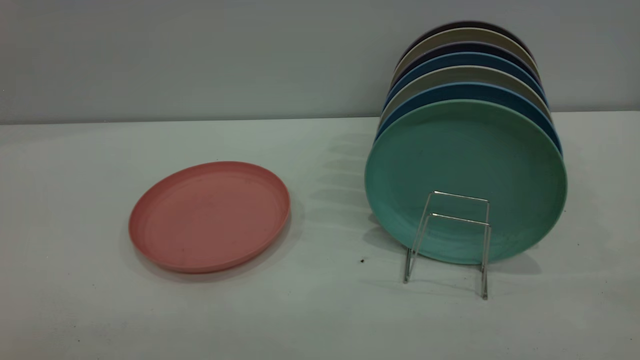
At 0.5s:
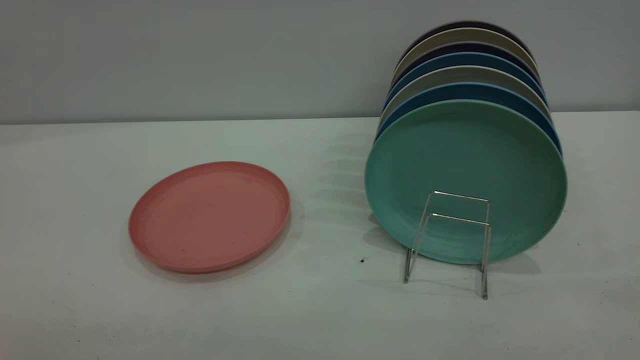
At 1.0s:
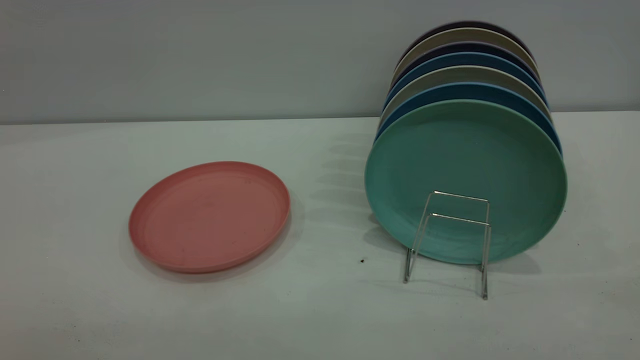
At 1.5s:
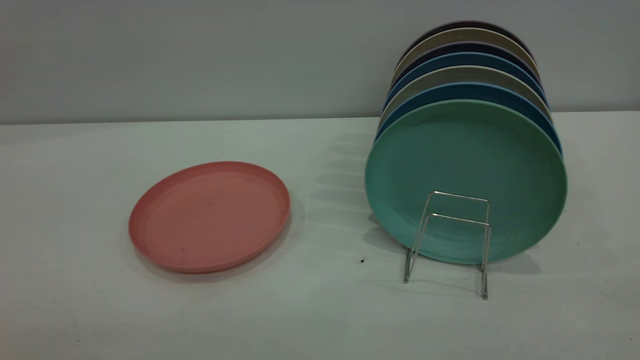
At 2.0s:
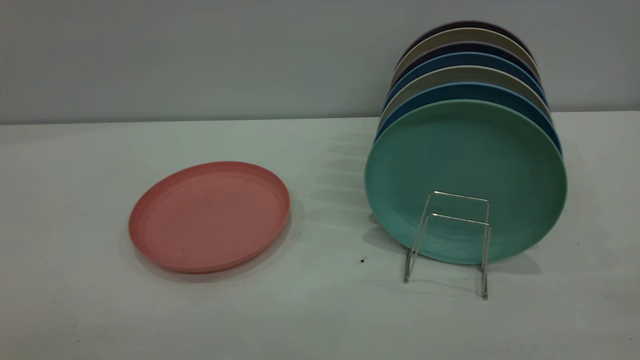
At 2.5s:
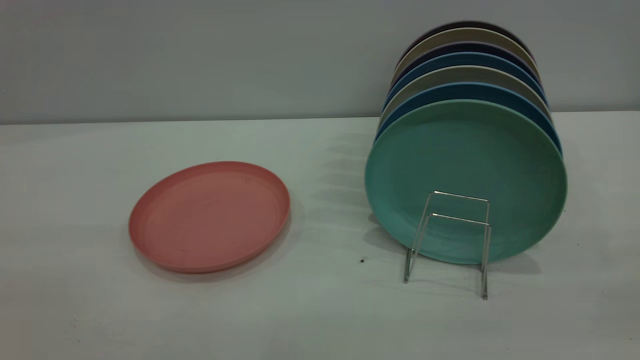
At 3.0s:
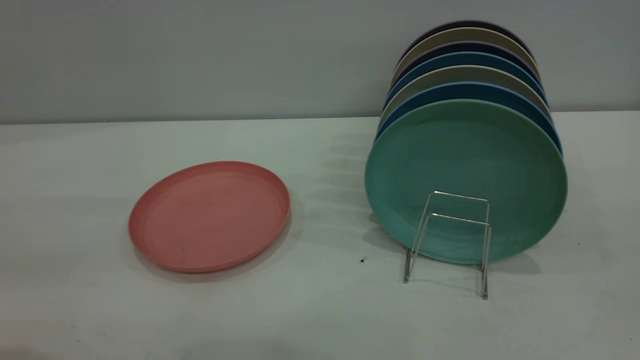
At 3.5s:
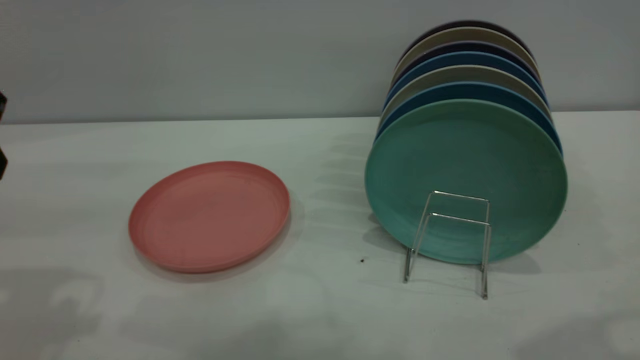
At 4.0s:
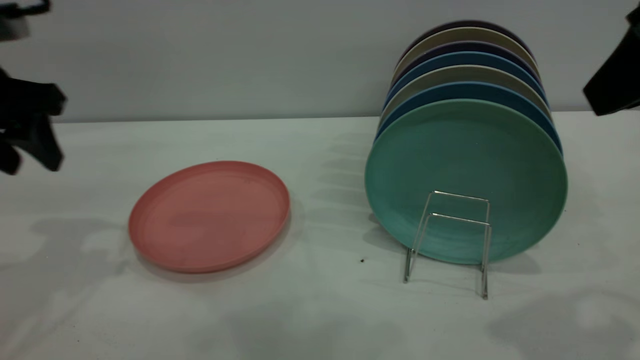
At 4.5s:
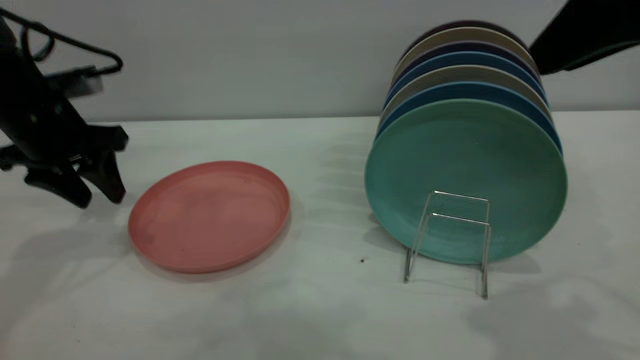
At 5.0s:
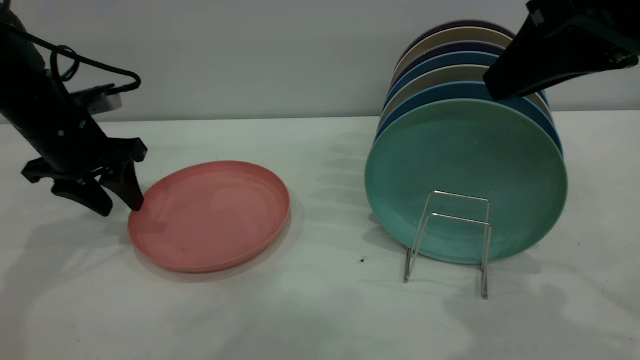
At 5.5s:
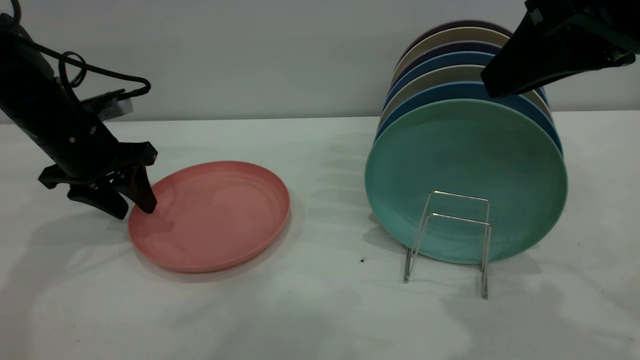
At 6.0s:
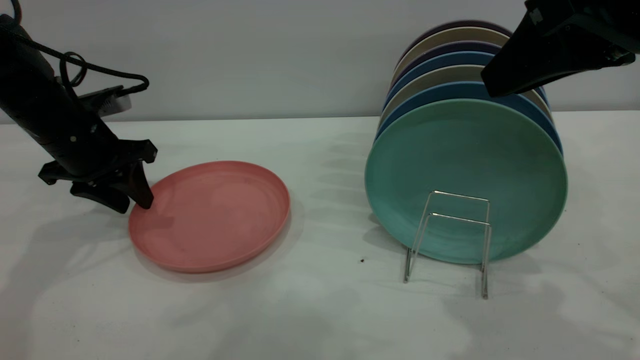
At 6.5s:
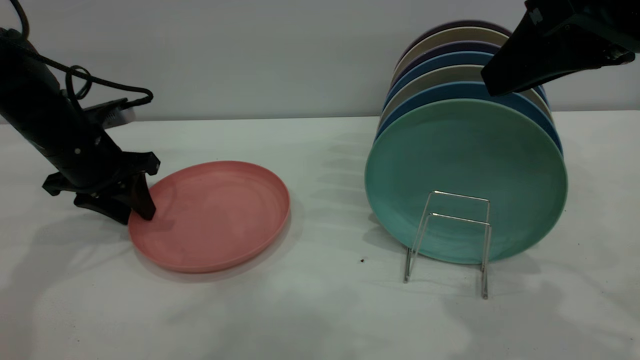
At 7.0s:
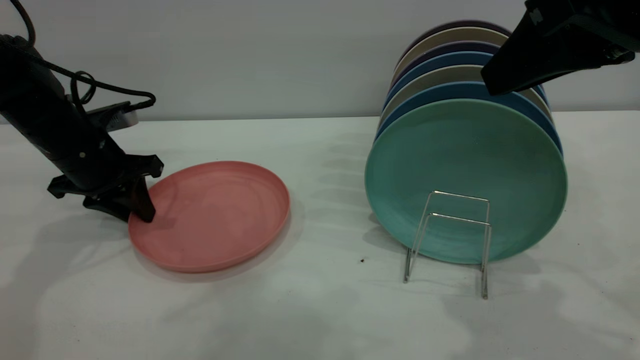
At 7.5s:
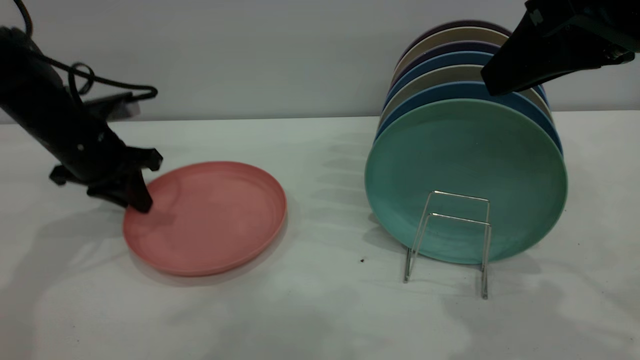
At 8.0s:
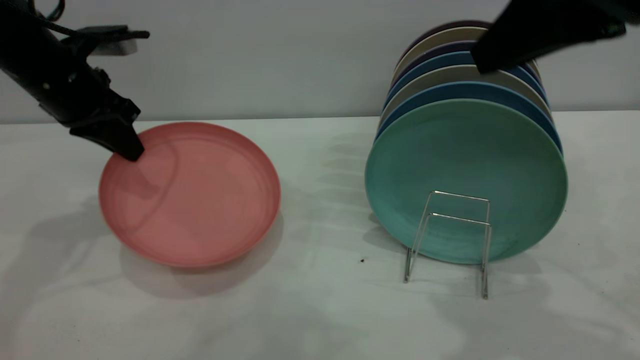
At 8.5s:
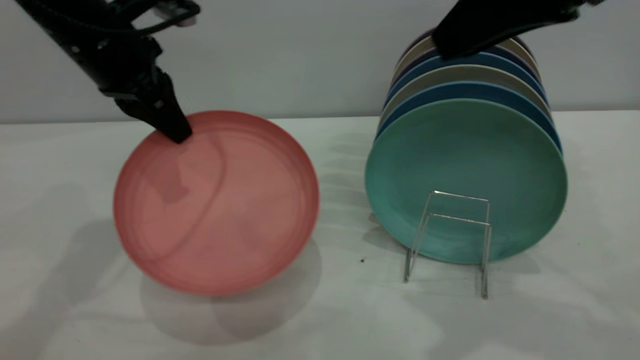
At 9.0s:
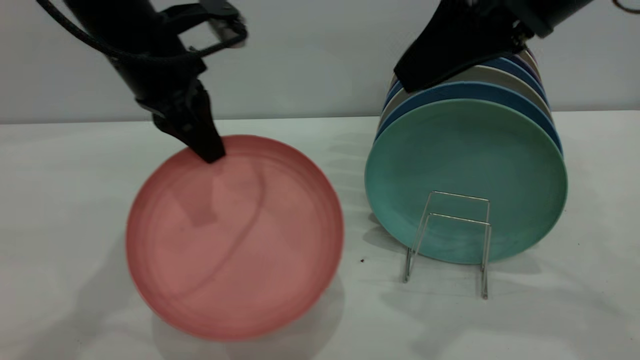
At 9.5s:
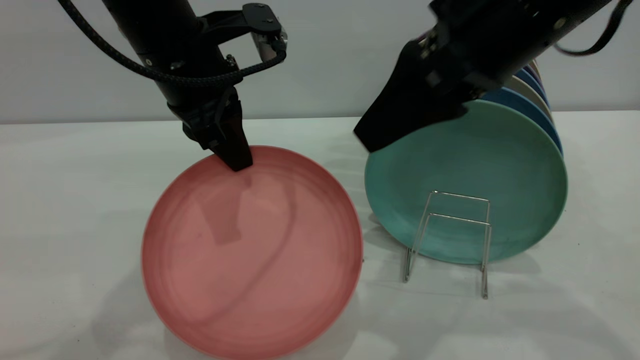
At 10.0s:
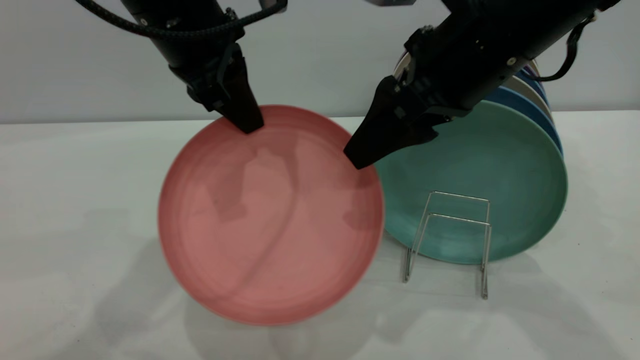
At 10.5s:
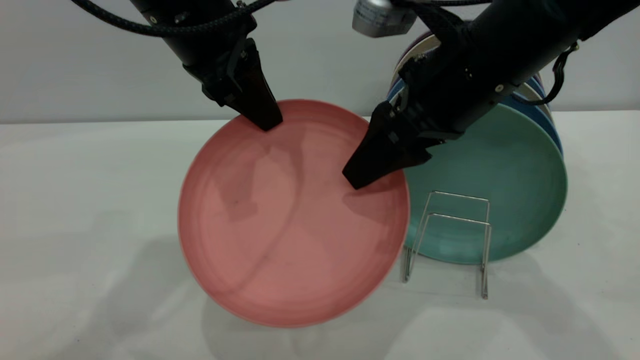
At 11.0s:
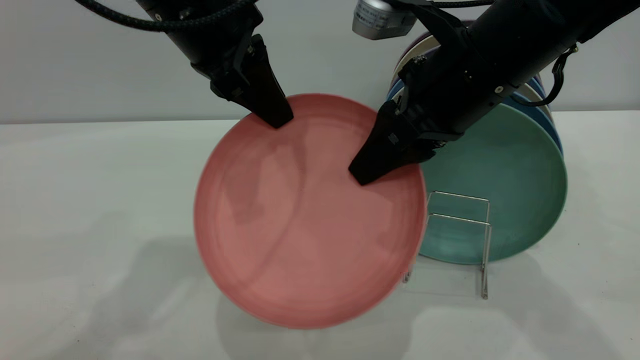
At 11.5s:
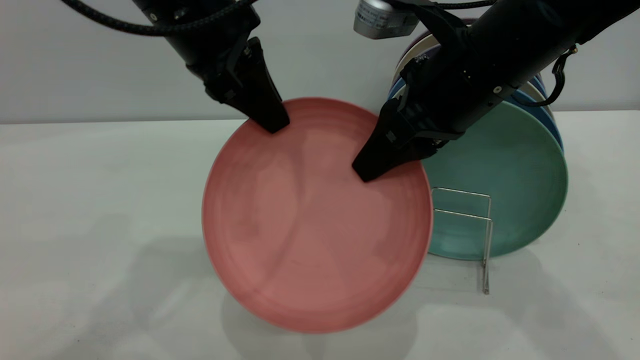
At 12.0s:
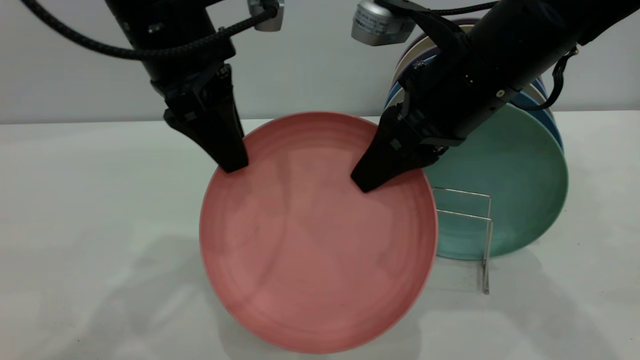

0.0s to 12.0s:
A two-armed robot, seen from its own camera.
Task of the whole recording: put the plate on the plate rack.
Step, 0.0s to 8.0s: Pick up the plate with the left gripper.
2.0s to 4.0s: The right gripper shifts roughly 25 cm forward. The left gripper shifts roughly 35 cm forward.
4.0s to 6.0s: The left gripper travels downward and forward by some 15 cm.
6.0s to 8.0s: The left gripper travels upward by about 5 cm, and closes up.
8.0s to 10.0s: The right gripper shifts roughly 15 cm downward, forward and to the left, and opens up. Meanwhile the left gripper is displaced to the right and upward by some 15 cm.
10.0s to 12.0s: The right gripper closes up. The left gripper opens up.

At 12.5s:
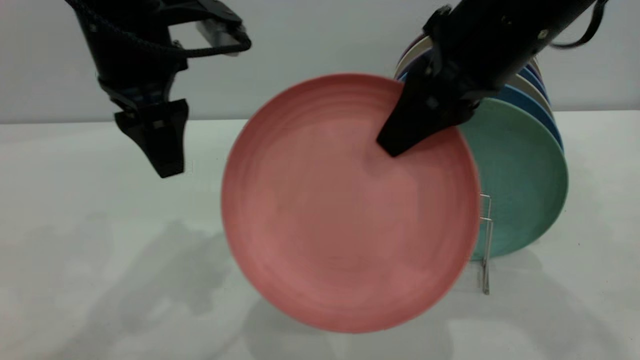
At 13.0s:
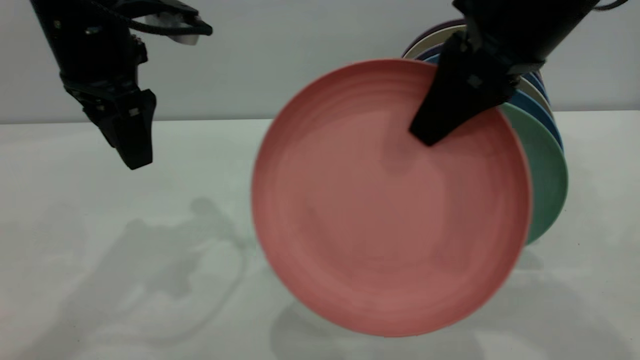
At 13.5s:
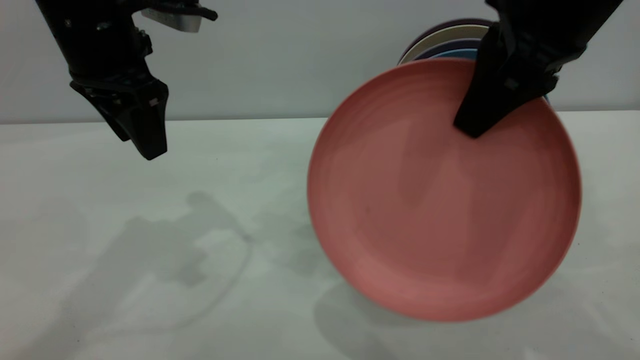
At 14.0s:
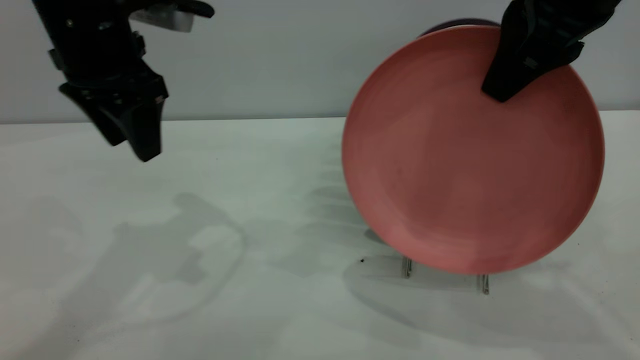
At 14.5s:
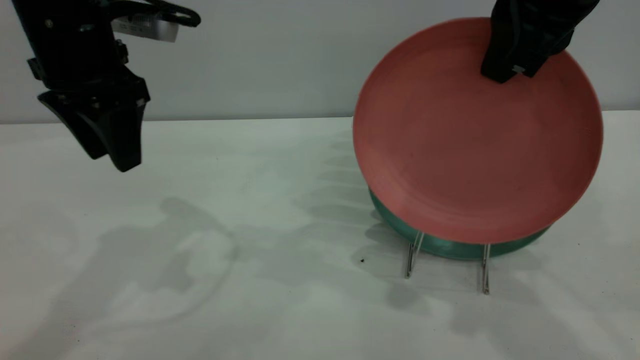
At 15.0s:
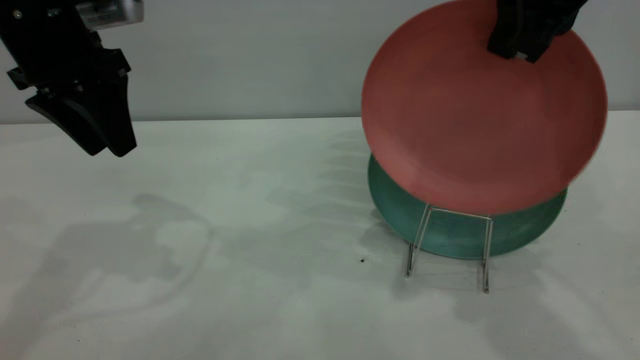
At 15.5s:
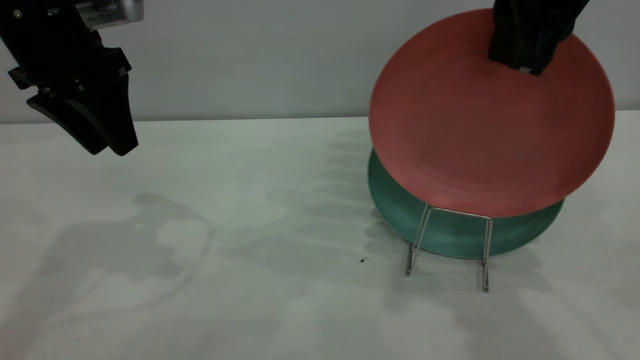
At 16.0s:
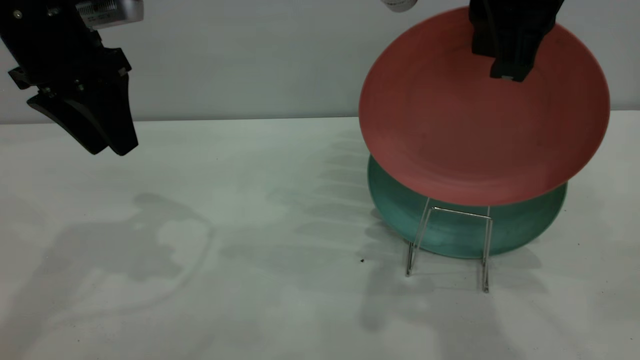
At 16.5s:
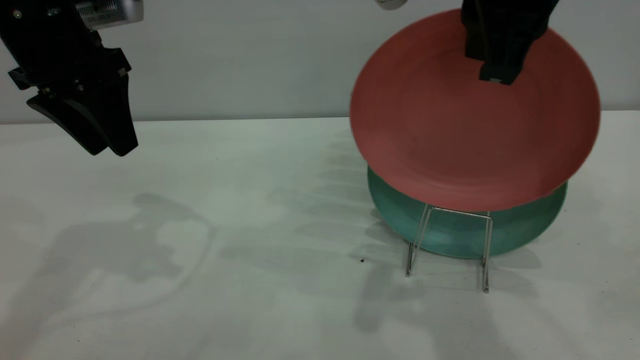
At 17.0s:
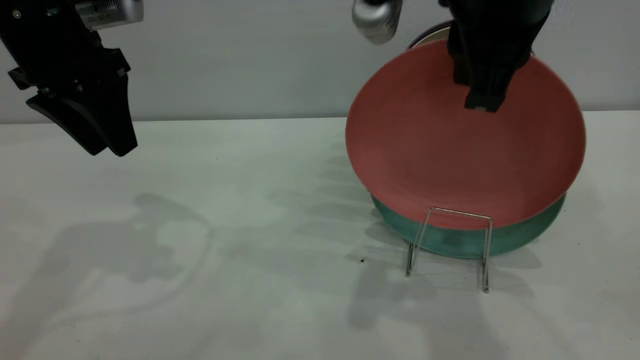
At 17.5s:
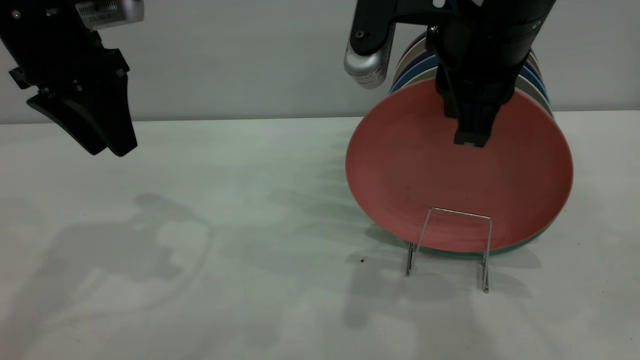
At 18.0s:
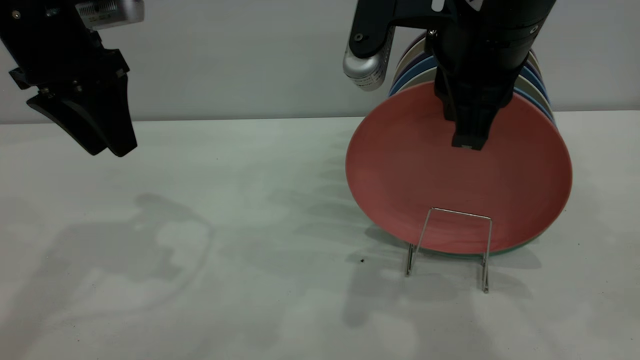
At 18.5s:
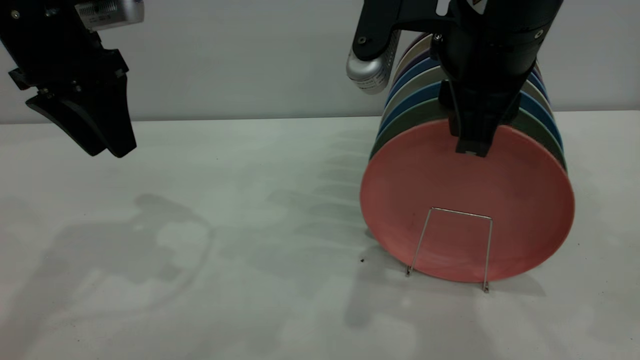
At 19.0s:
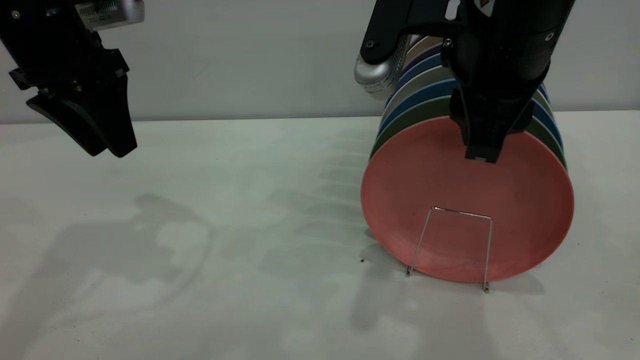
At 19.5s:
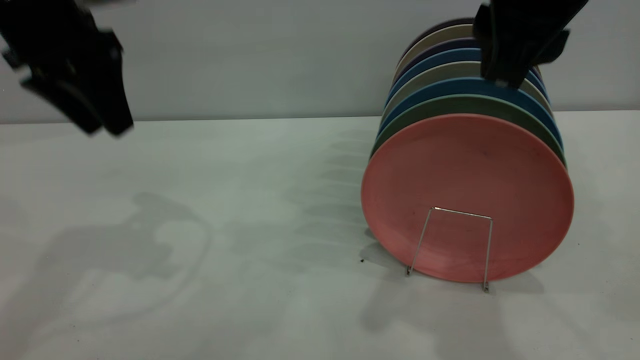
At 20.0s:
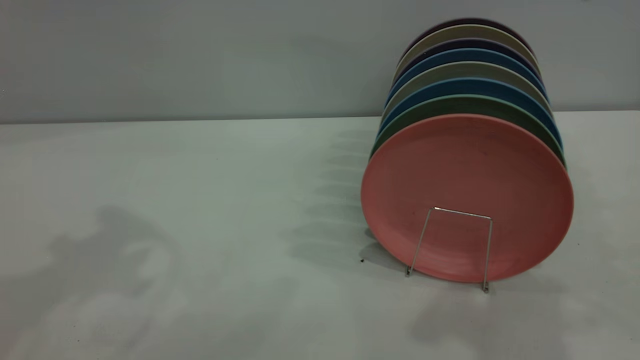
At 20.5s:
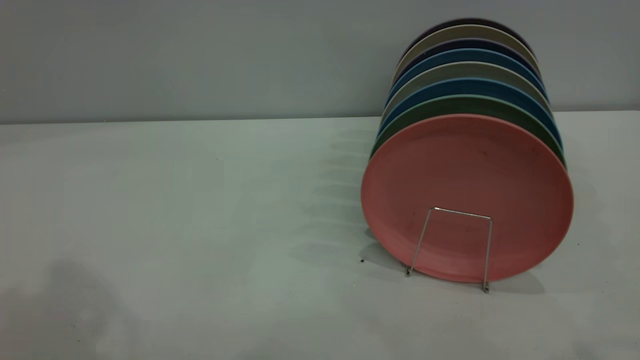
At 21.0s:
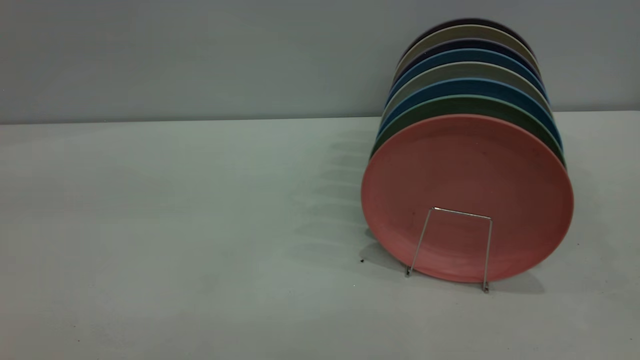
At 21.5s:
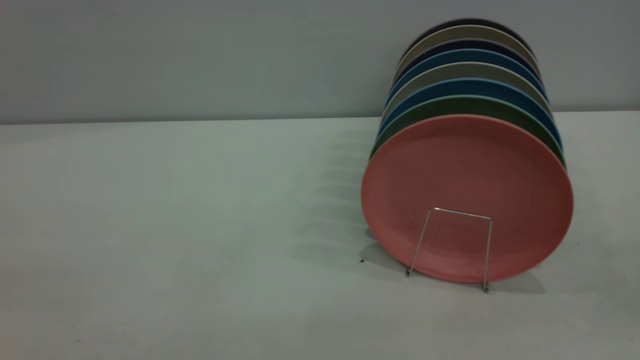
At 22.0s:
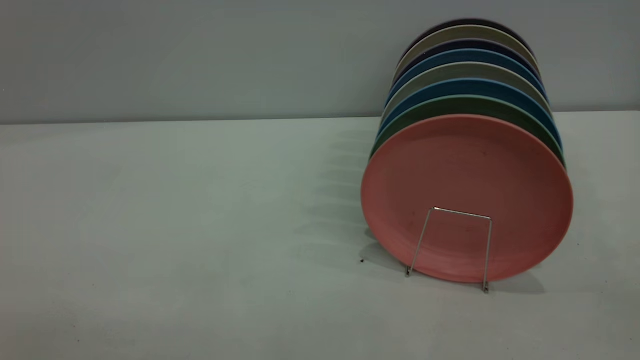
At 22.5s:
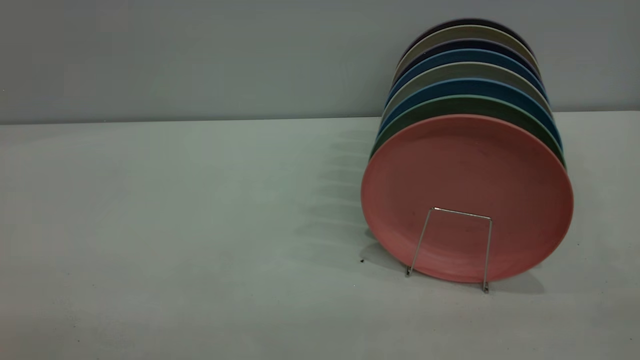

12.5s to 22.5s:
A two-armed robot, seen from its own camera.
Task of the whole recording: put the plate on the plate rack.
Step, 12.5s to 19.5s: Place the plate on the shelf.
12.5s to 14.5s: The right gripper ends up some 5 cm from where it was. The left gripper goes some 5 cm to the left.
14.5s to 16.5s: There are only small adjustments of the grippers.
16.5s to 18.5s: The right gripper shifts about 5 cm downward, and opens its fingers.
18.5s to 20.5s: The right gripper is displaced upward, backward and to the right by approximately 25 cm. The left gripper travels upward and backward by about 30 cm.
